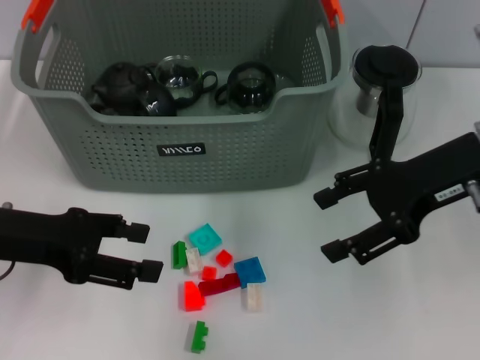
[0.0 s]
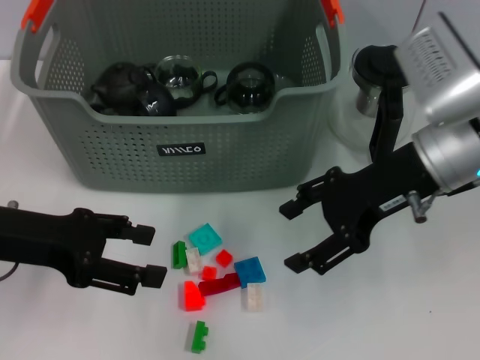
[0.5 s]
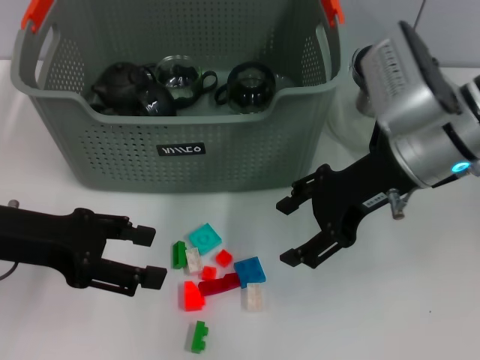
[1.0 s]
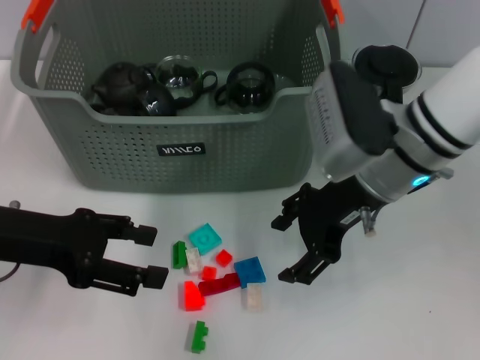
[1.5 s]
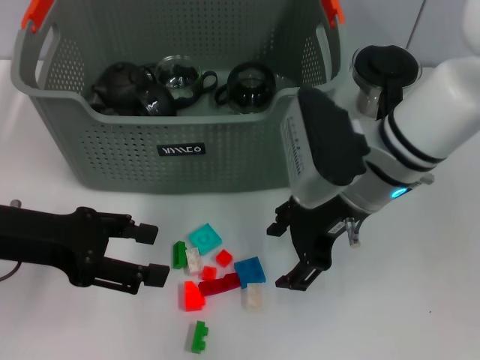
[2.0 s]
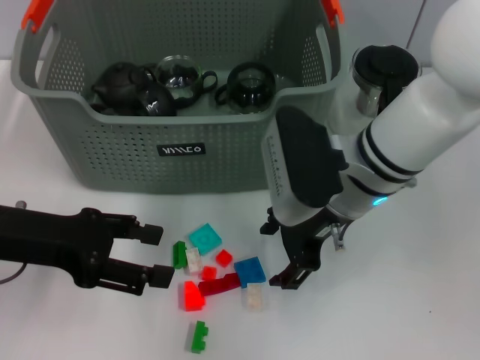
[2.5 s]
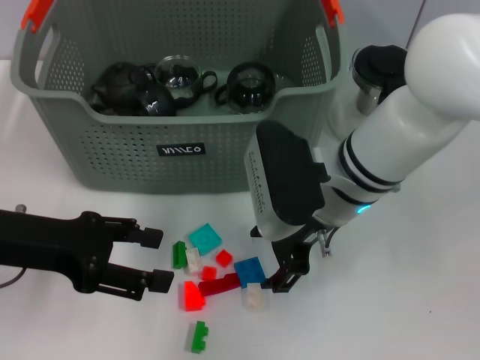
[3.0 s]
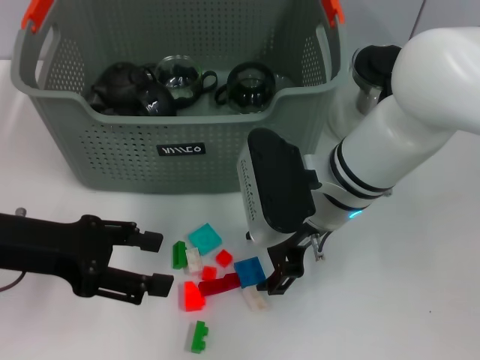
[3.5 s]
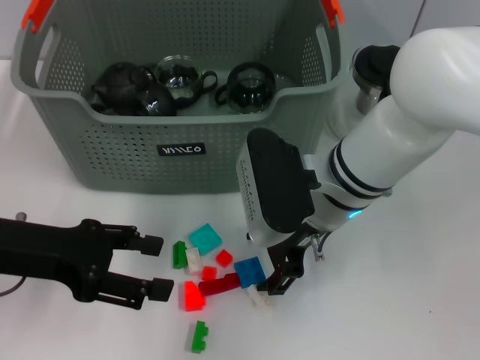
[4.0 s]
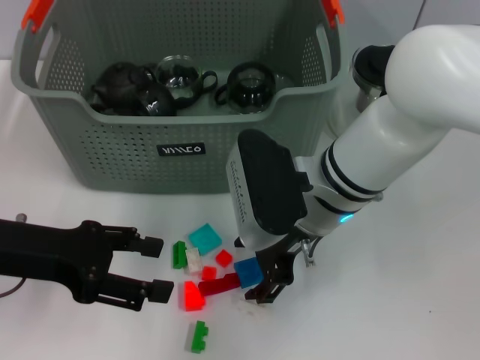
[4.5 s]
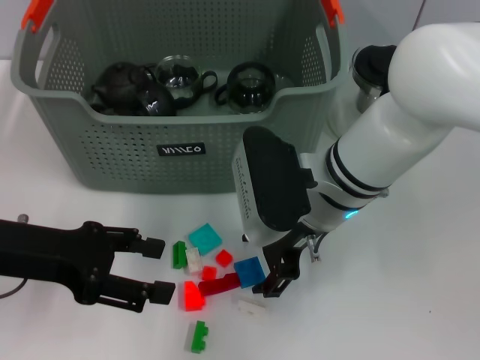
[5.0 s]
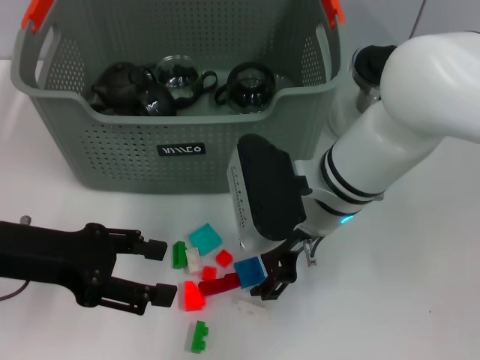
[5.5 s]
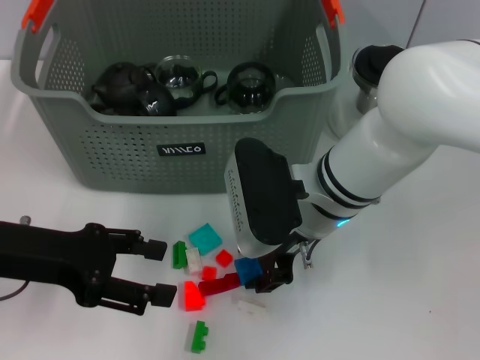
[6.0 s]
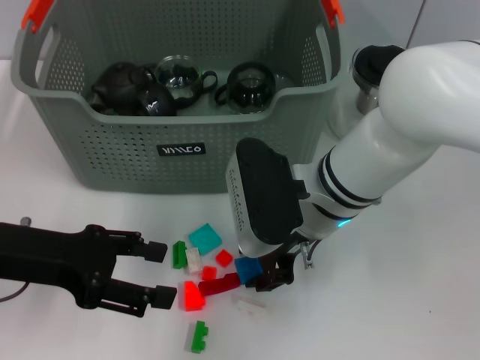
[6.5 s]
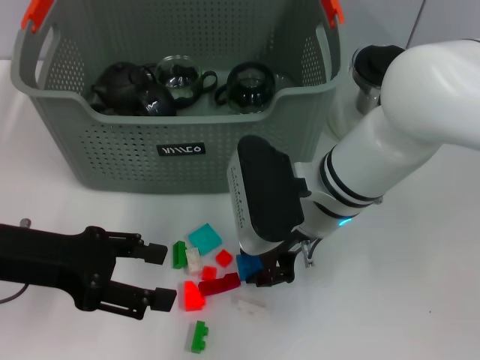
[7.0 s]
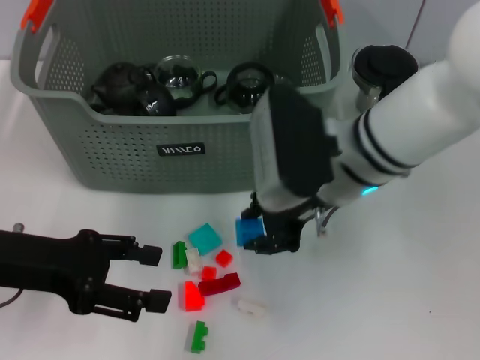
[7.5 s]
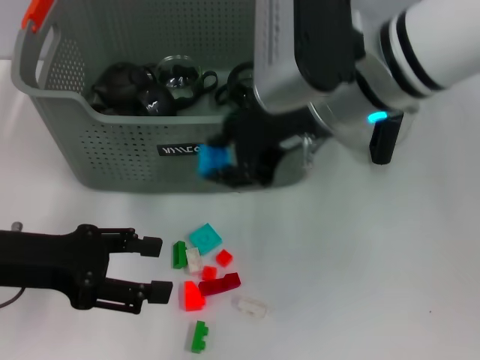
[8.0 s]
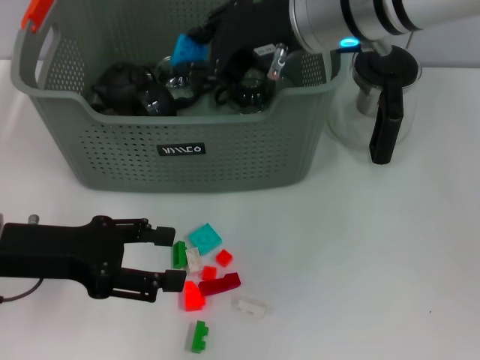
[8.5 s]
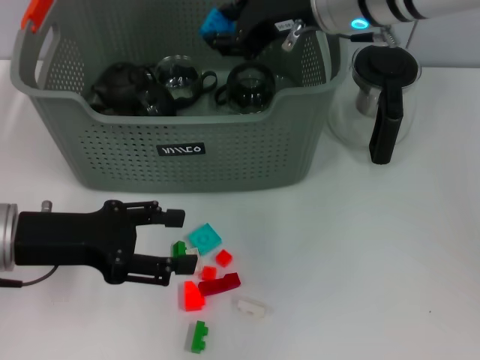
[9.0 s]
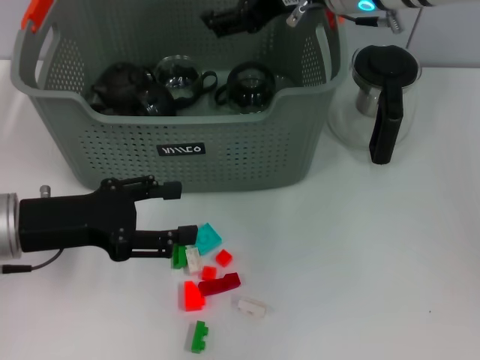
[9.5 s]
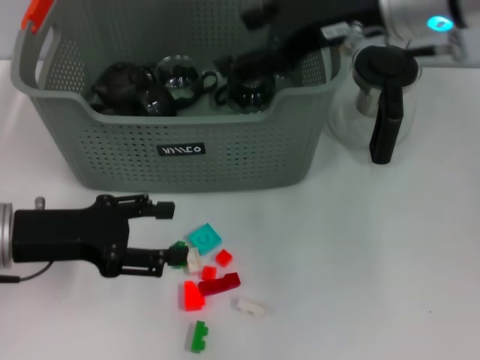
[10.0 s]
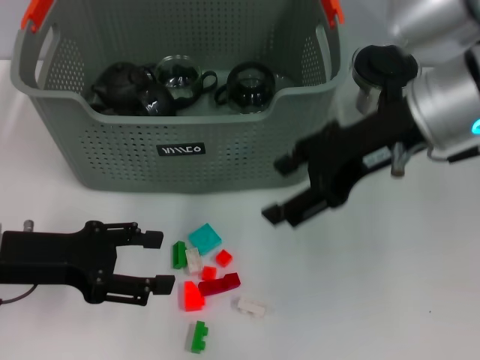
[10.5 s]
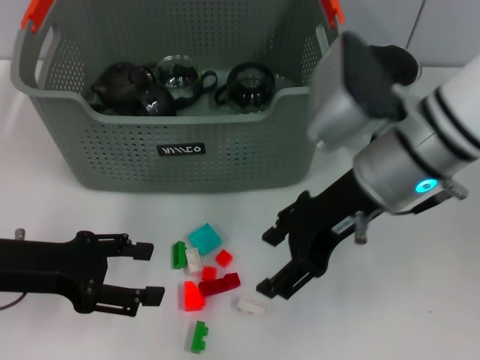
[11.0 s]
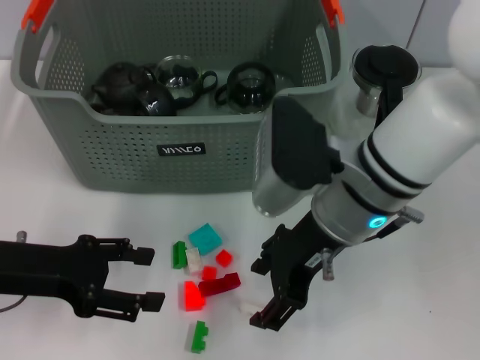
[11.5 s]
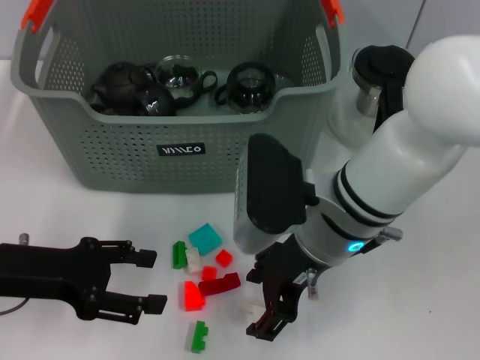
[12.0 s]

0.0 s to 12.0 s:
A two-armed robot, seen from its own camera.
Task of the whole recording: pick up the teacup on the table and place it into the storage bin, pick up the block on the table and place it into the storage bin.
Step, 0.0 to 7.0 s: Grasp the dark blue block with left gripper.
Step, 7.5 to 10.0 s: Place the dark blue block in the storage box with left gripper.
0.0 to 2.0 s: The right gripper travels to the left by approximately 10 cm.
4.0 to 6.0 s: The two grippers keep their place.
6.0 to 8.0 s: The right gripper heads upward, covering approximately 15 cm.
8.0 to 10.0 s: The right gripper heads to the right, covering about 5 cm, and opens.
10.0 to 12.0 s: The right gripper is displaced downward, backward and to the left by approximately 15 cm.

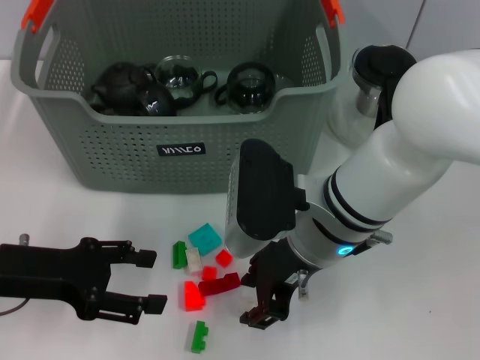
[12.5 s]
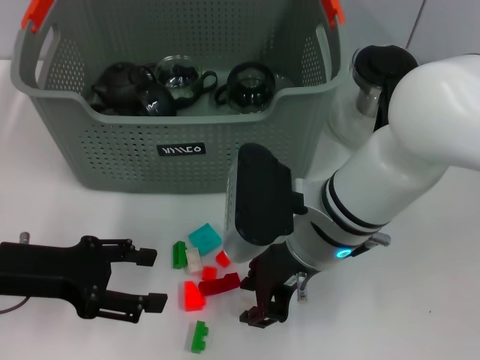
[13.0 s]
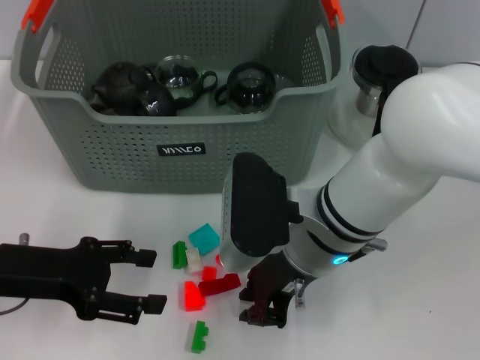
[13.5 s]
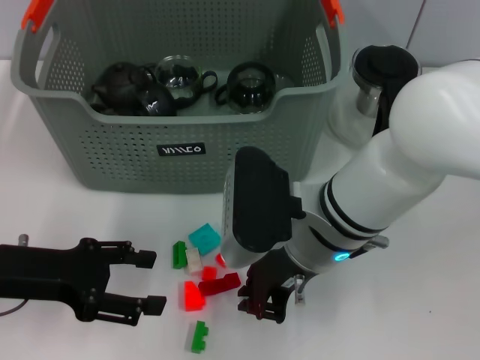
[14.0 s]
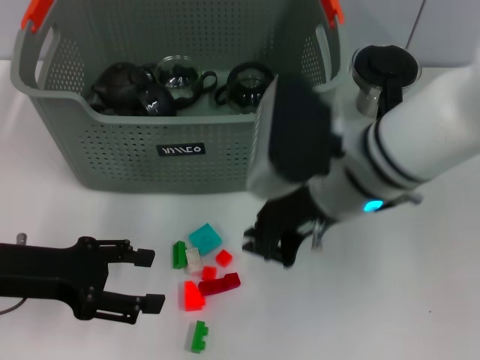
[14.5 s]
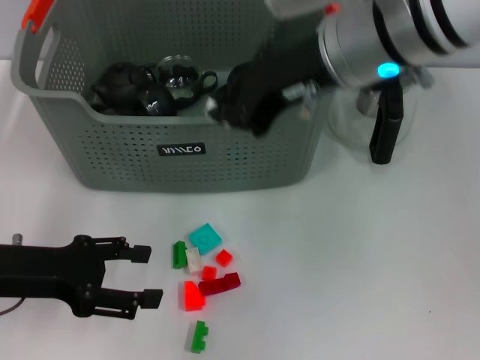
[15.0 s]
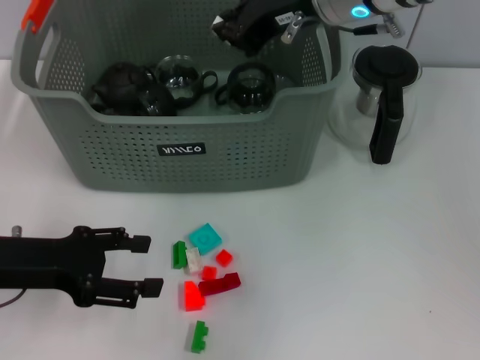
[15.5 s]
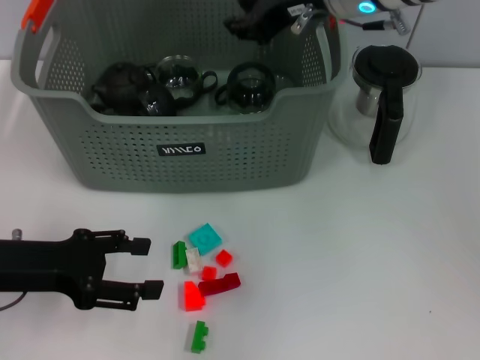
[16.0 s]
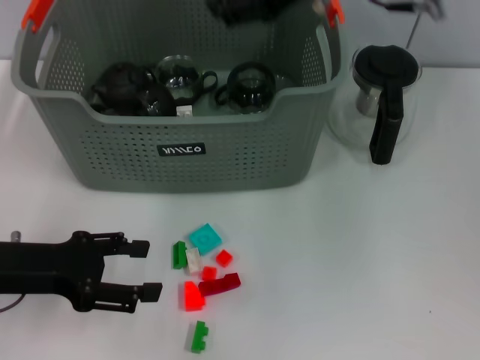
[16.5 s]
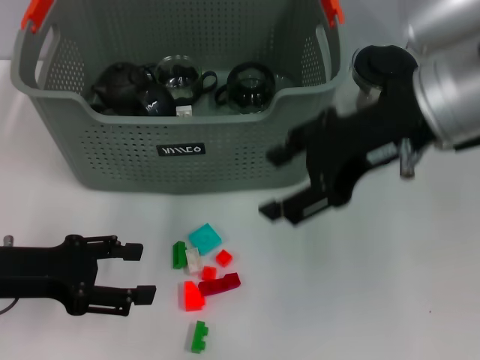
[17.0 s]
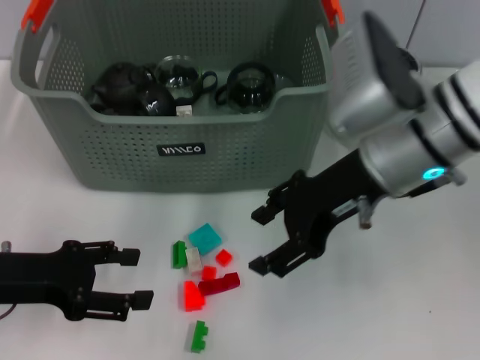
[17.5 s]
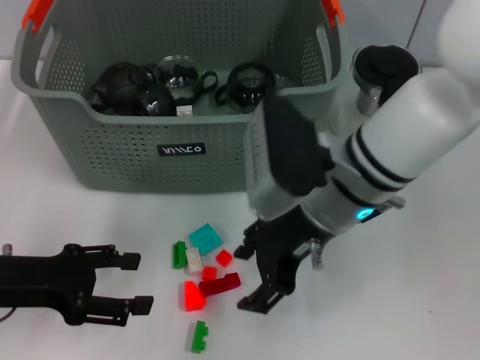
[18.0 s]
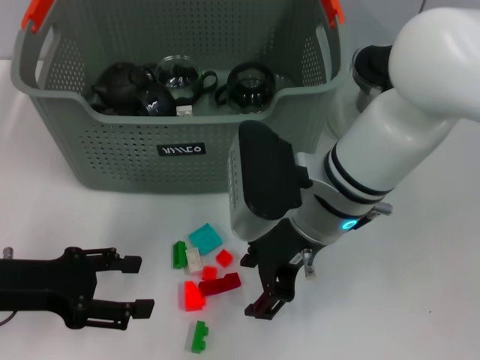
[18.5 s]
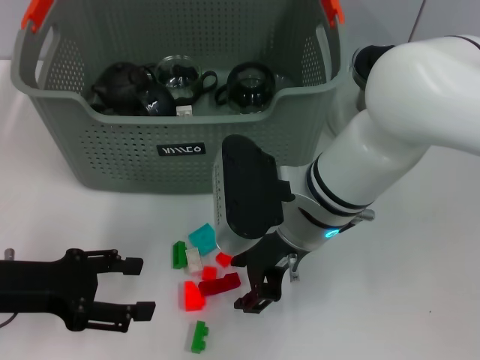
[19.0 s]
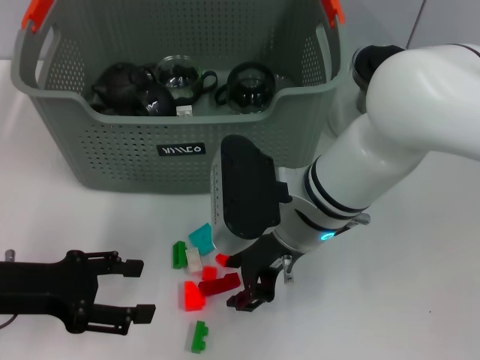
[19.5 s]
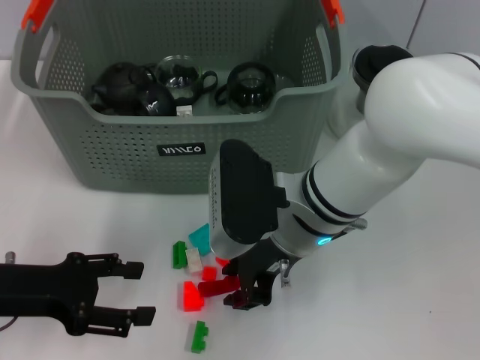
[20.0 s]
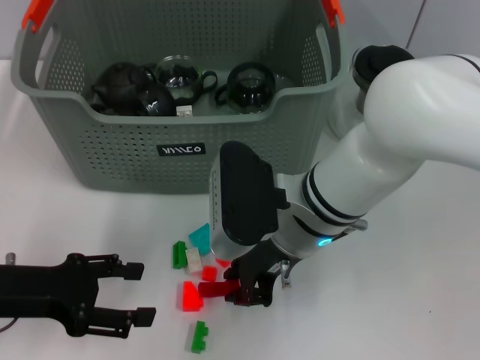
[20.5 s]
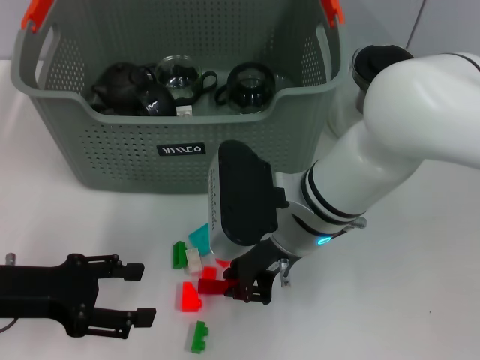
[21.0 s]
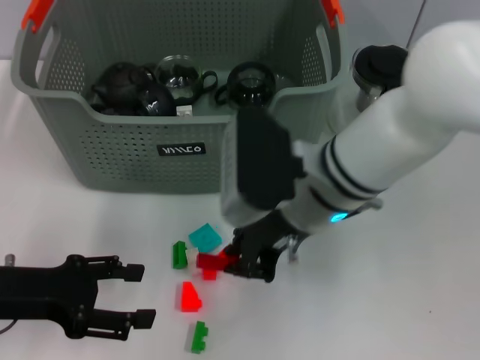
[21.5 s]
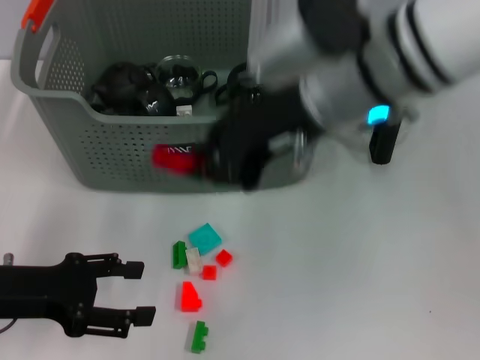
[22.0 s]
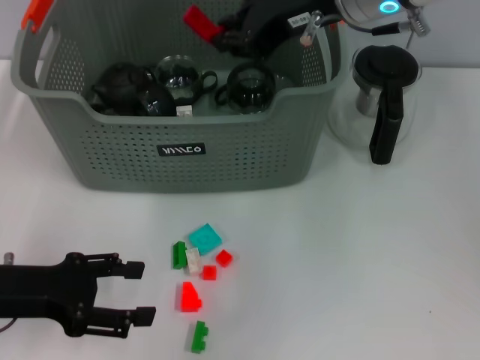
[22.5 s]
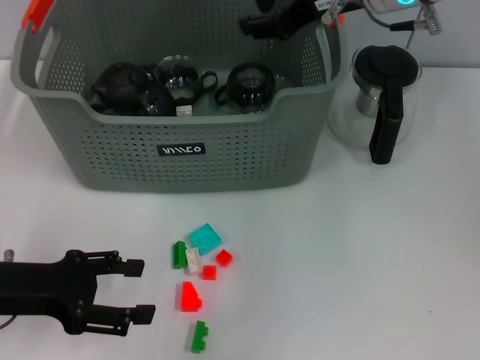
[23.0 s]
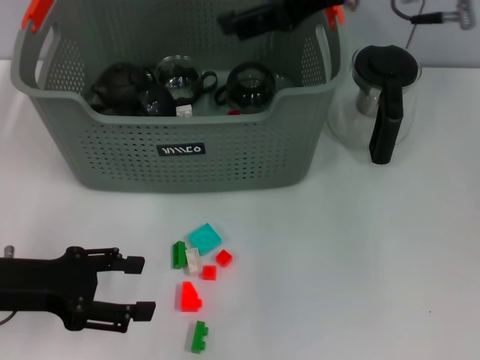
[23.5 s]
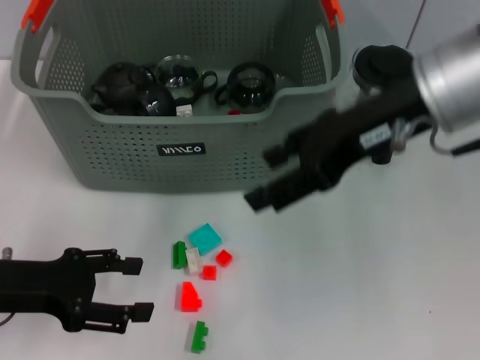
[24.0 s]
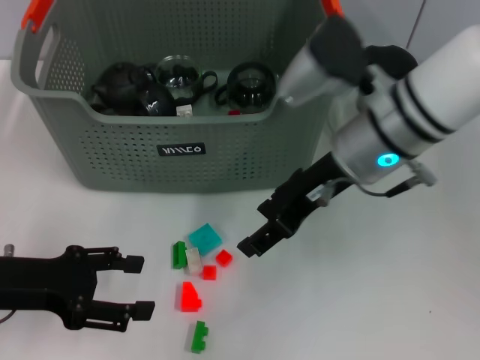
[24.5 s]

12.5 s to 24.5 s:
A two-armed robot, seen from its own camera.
Task of the whole recording: pick up the teacup on the table and place it into the storage bin, pick up the block on the table and place it into the storage bin.
Step, 17.0 to 21.0 s: Grasp the red block with right gripper.
Step, 21.5 to 23.5 s: Place the red block in the storage box with right gripper.
12.5 to 14.5 s: The right gripper shifts some 5 cm upward, and closes its fingers.
14.5 to 16.5 s: The right gripper moves upward and forward, approximately 15 cm, and opens up.
16.5 to 18.5 s: The right gripper goes roughly 15 cm downward.
18.5 to 20.5 s: The right gripper closes.
20.5 to 22.5 s: The right gripper goes about 20 cm upward and forward.
22.5 to 24.5 s: The right gripper heads downward, covering roughly 10 cm, and opens its fingers.

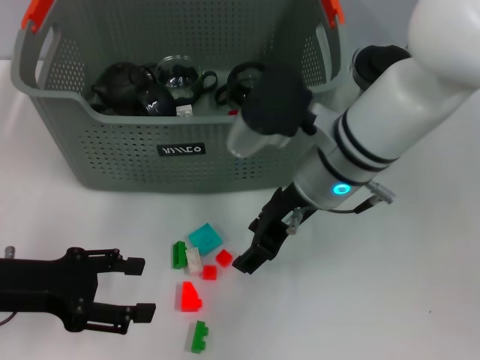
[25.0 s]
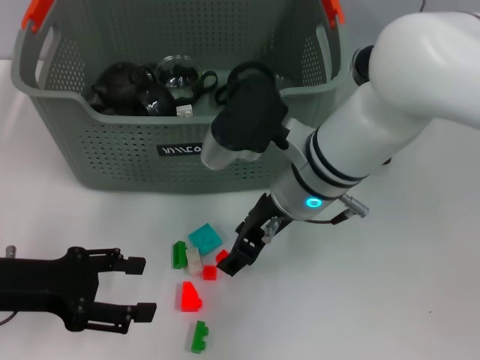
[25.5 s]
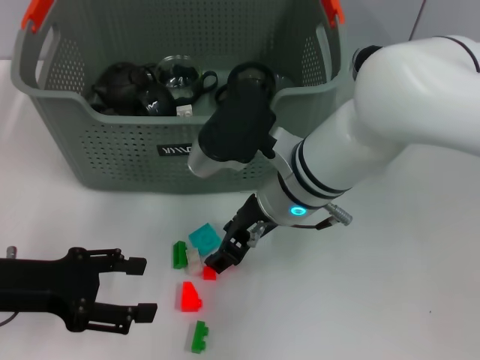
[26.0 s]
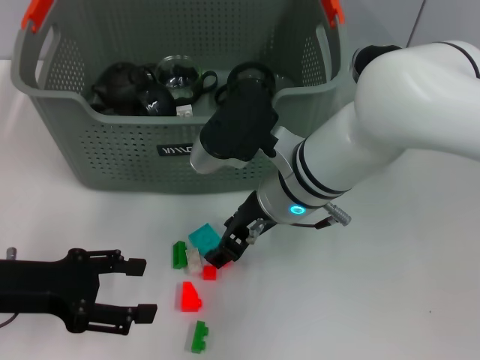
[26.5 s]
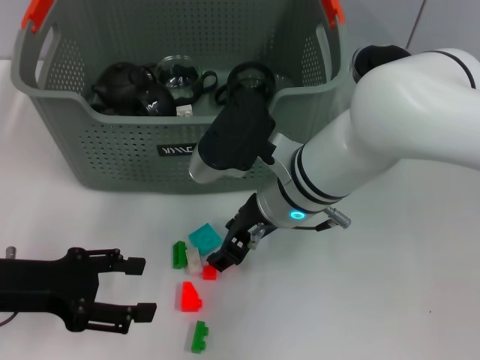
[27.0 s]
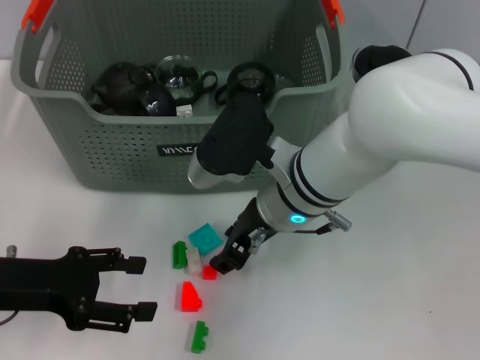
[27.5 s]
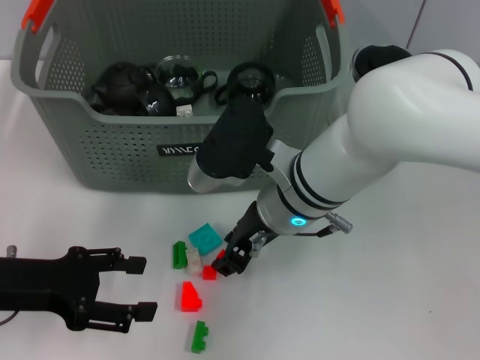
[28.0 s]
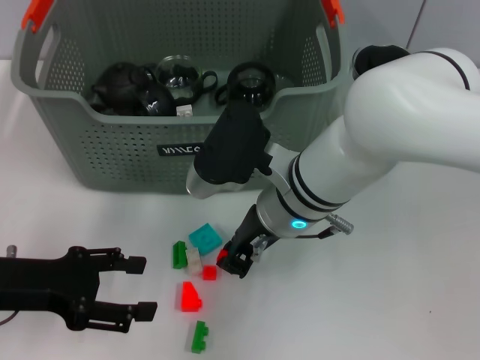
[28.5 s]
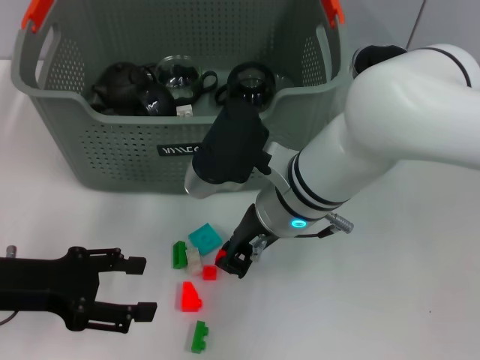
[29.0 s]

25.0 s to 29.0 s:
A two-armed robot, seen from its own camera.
Task of the whole recording: pick up the teacup on the table and place it into the storage bin, pick up the block on the table and place it into the storage bin.
Step, 25.0 to 28.5 s: Grasp the orange block with right gripper.
25.0 to 27.0 s: The grippers move only a little.
27.0 to 29.0 s: The right gripper closes up.
